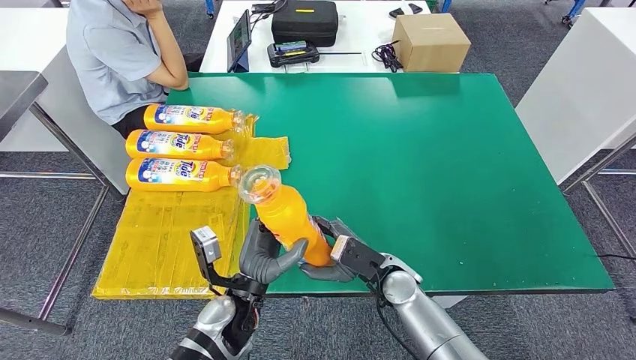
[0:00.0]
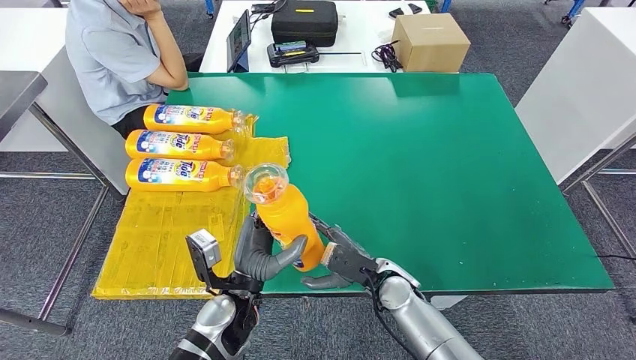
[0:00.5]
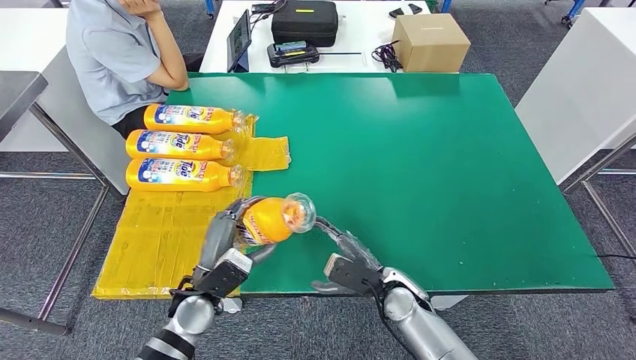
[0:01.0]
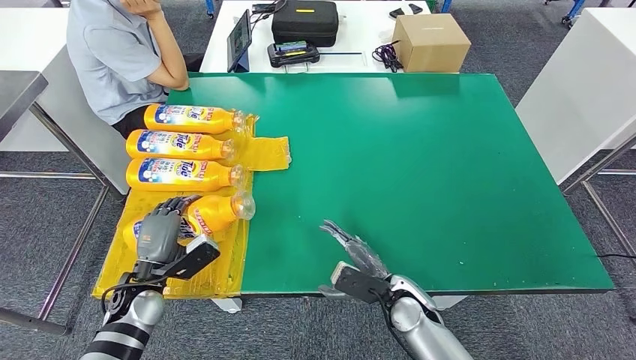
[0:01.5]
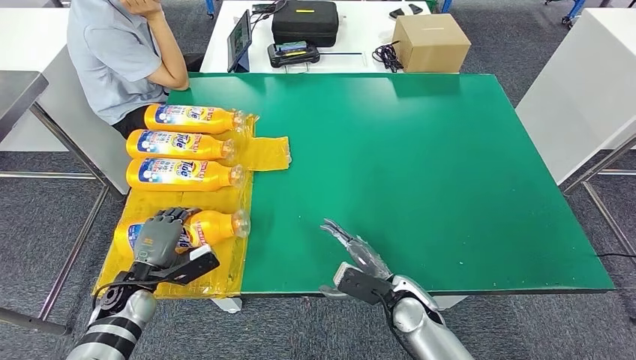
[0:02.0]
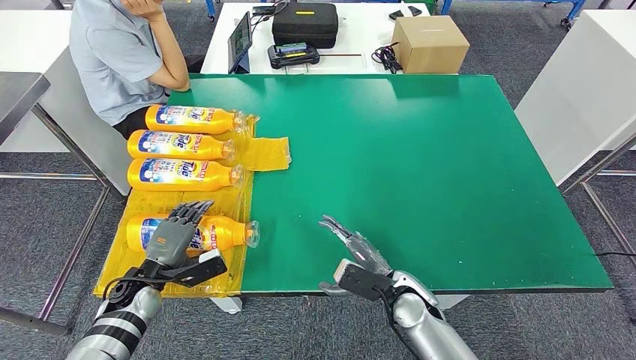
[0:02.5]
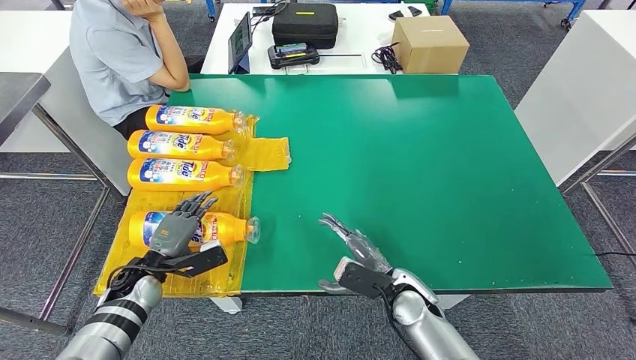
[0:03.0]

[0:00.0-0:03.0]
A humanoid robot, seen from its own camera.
Step, 0:00.0 to 0:03.0: Flip the fast-moving consumer goods bottle to the front side.
0:00.0 to 0:01.5: The right hand ends up approximately 5 cm from where it was, while the left hand travels to the left by roughly 20 cm.

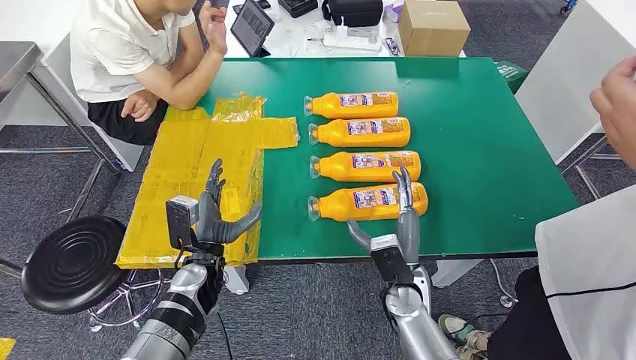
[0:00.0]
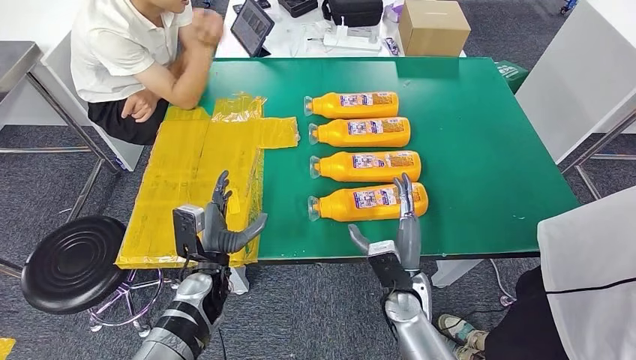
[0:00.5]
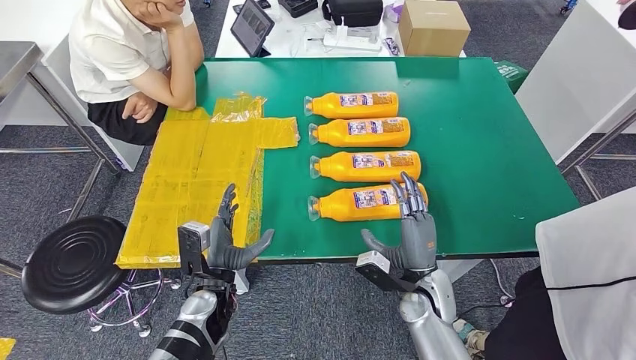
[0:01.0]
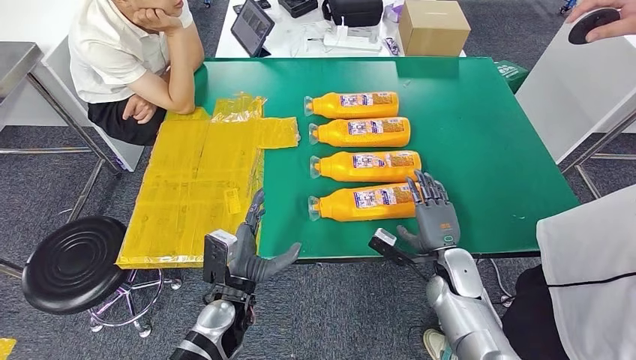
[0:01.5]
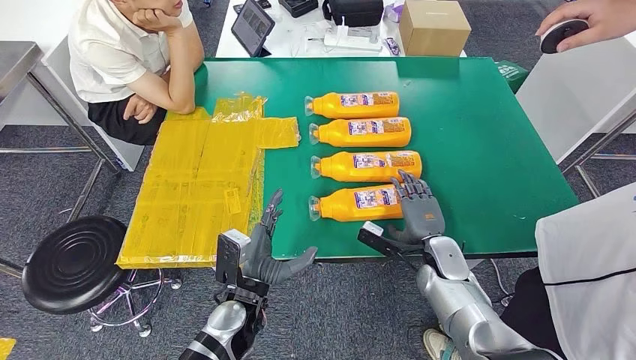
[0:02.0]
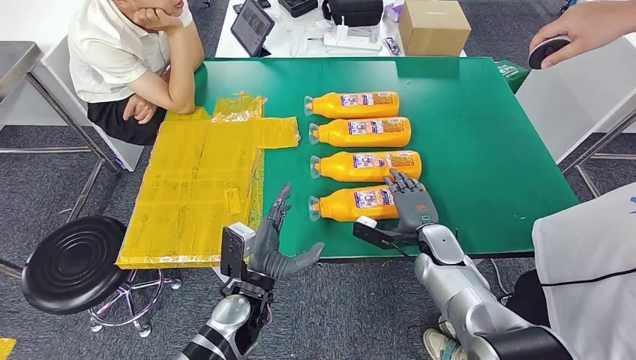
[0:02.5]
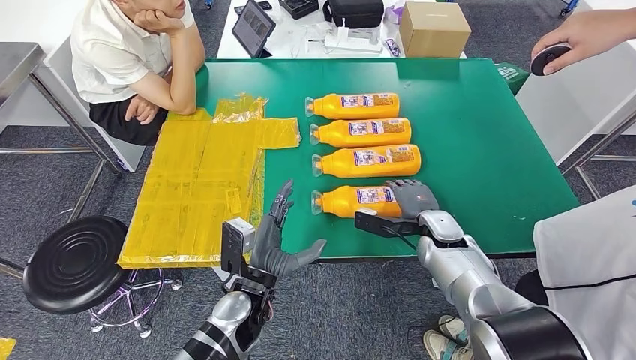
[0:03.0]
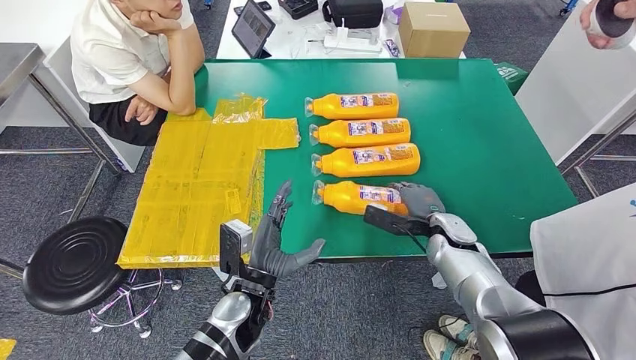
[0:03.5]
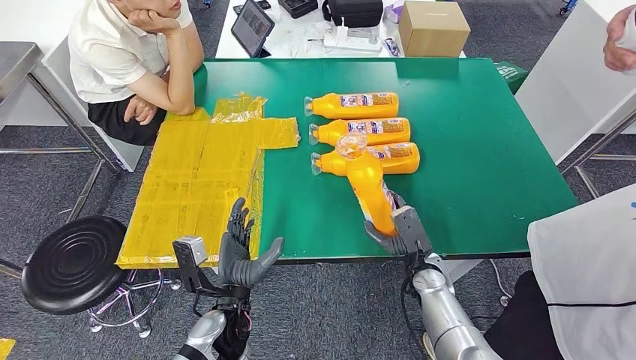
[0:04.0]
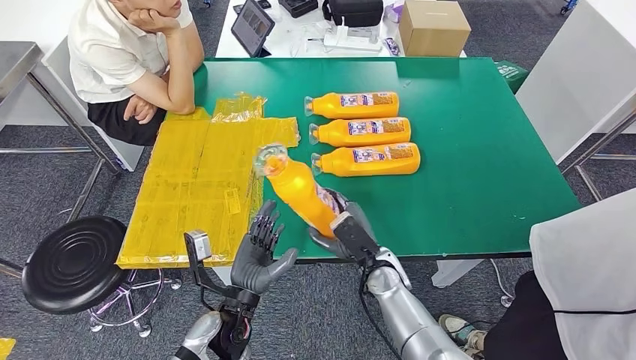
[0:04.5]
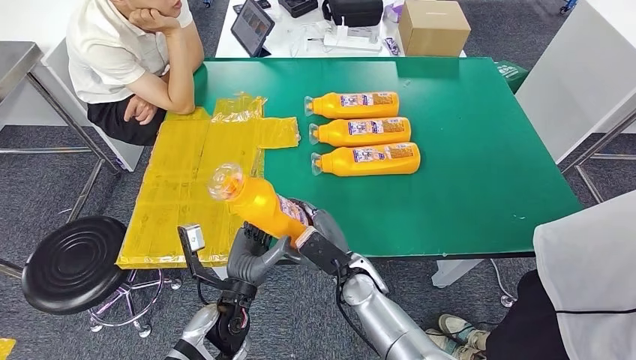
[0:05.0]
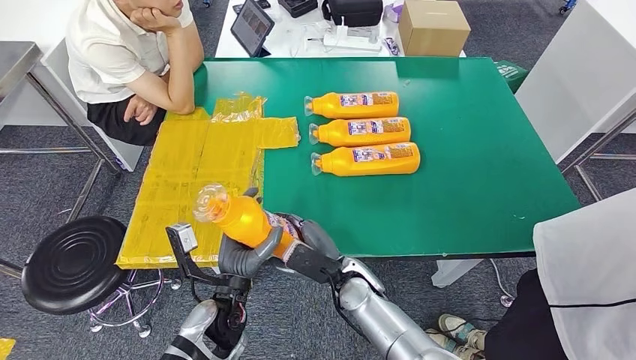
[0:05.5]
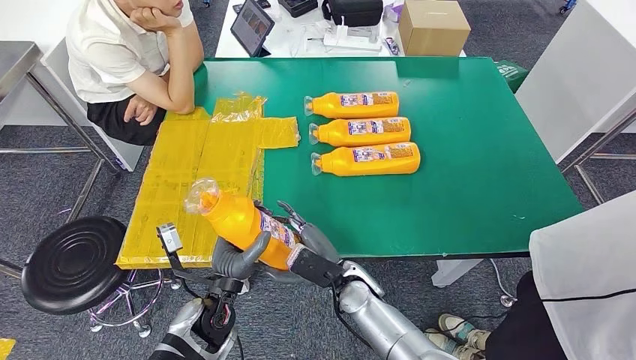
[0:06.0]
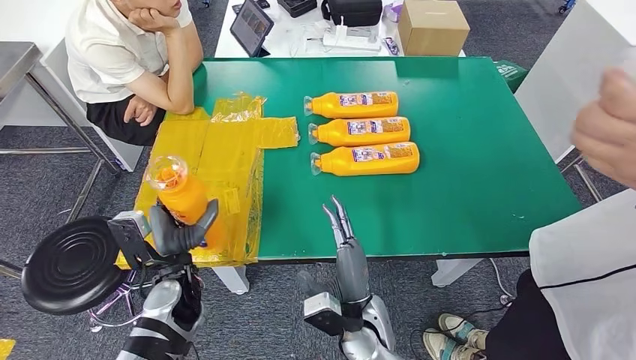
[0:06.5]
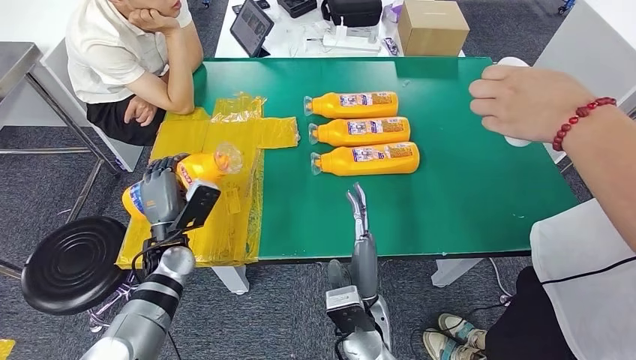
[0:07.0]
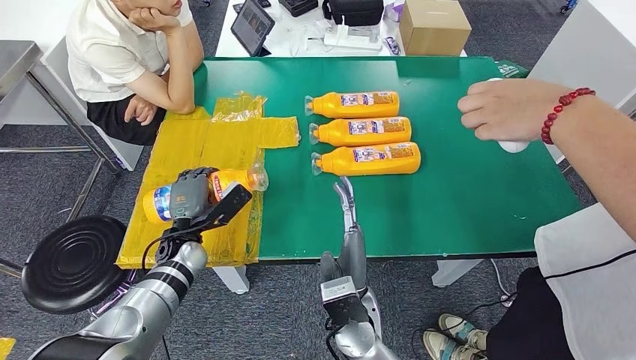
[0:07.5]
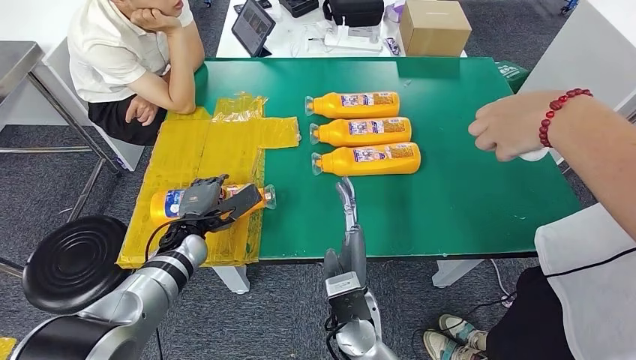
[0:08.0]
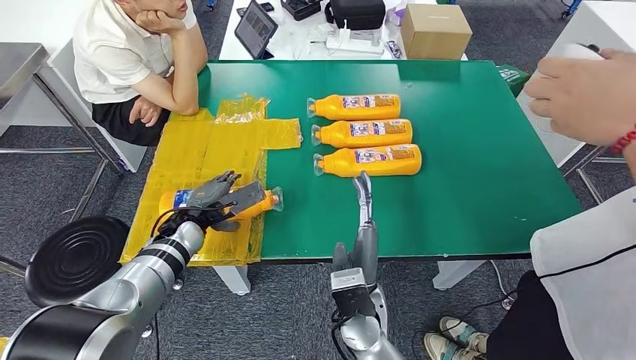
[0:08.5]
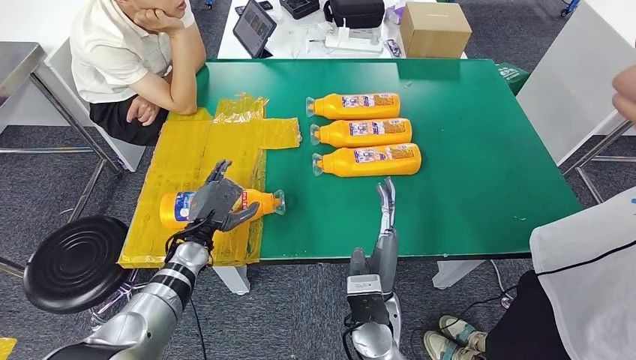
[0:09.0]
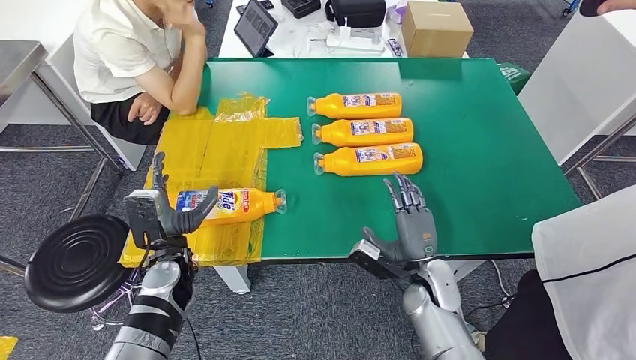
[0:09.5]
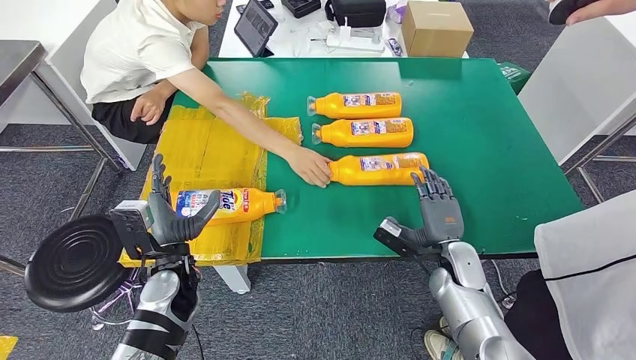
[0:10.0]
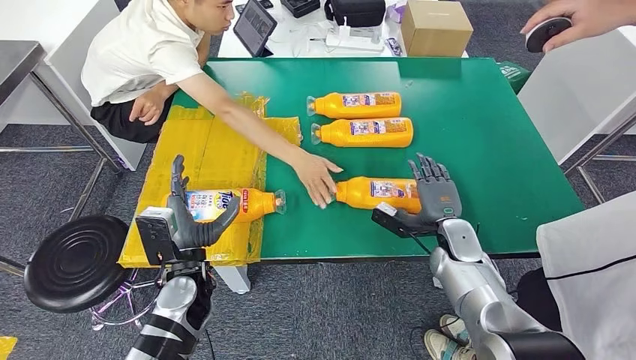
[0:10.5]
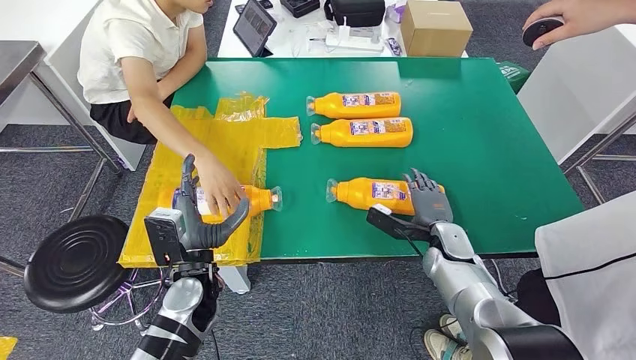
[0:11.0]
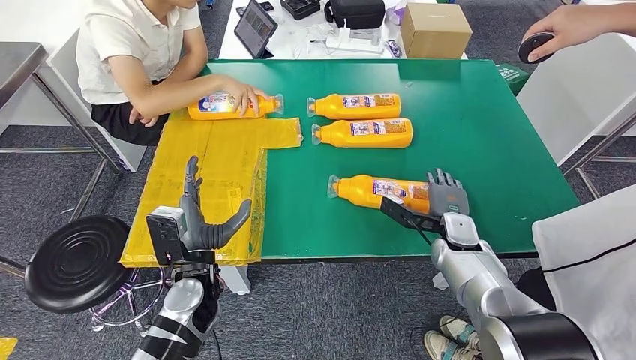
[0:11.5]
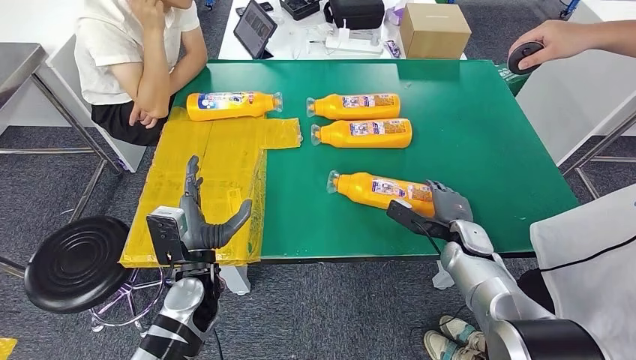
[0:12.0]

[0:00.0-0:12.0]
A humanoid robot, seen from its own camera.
Step, 0:00.0 to 0:03.5: Take the fast-moving consumer goods bottle from the table.
Step, 0:04.0 to 0:10.0: Flip the fast-moving consumer goods bottle to the front side.
0:04.0 to 0:06.0: The right hand heads to the left, covering roughly 15 cm.

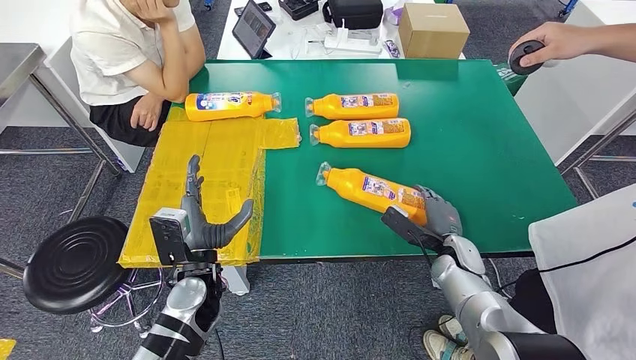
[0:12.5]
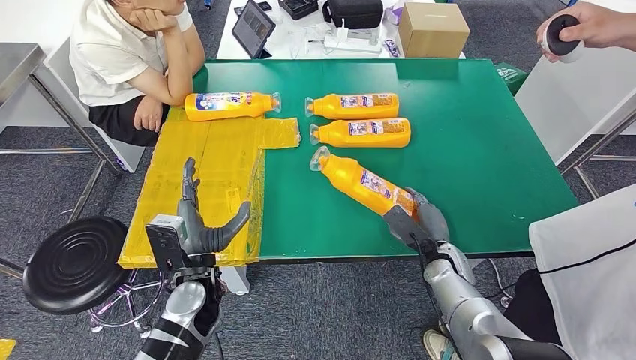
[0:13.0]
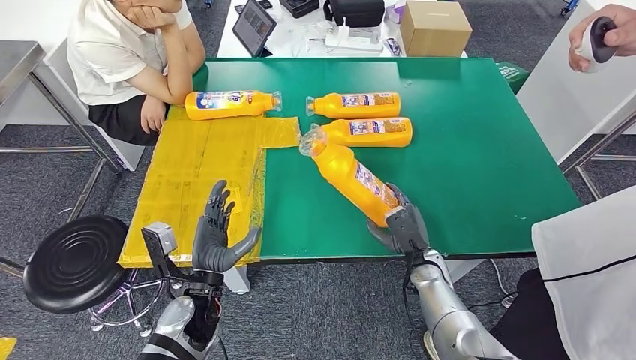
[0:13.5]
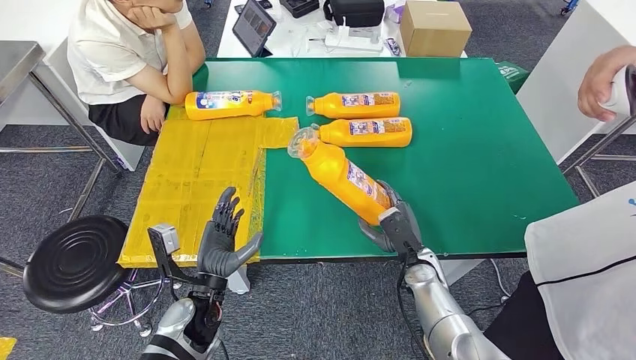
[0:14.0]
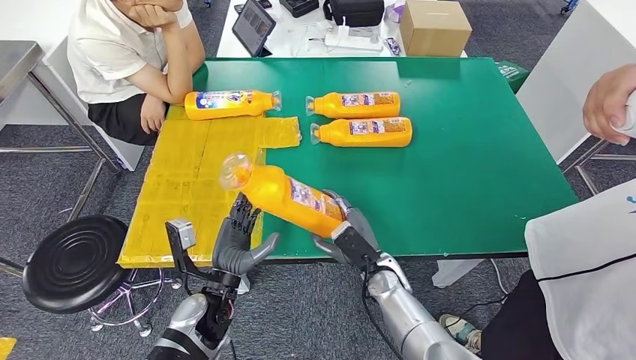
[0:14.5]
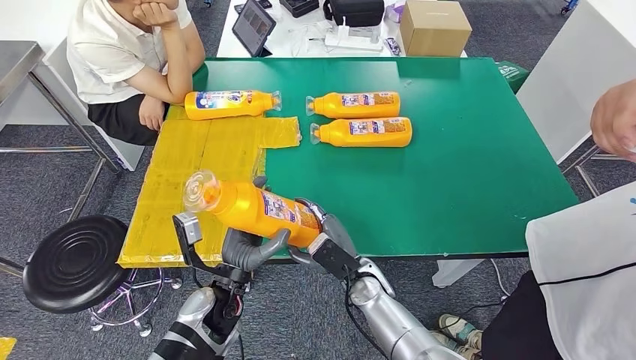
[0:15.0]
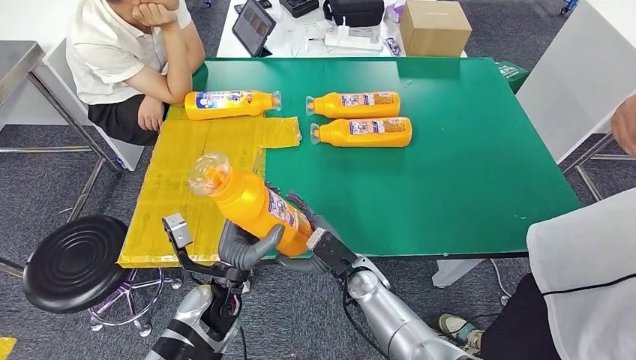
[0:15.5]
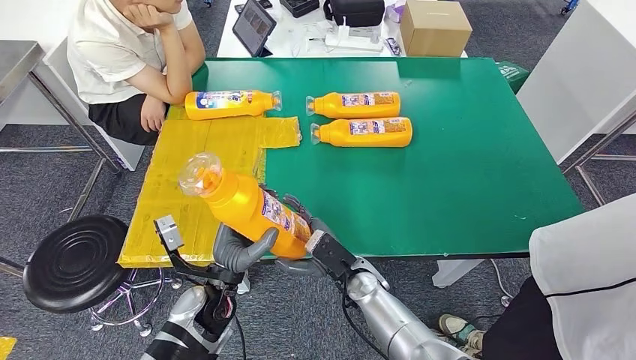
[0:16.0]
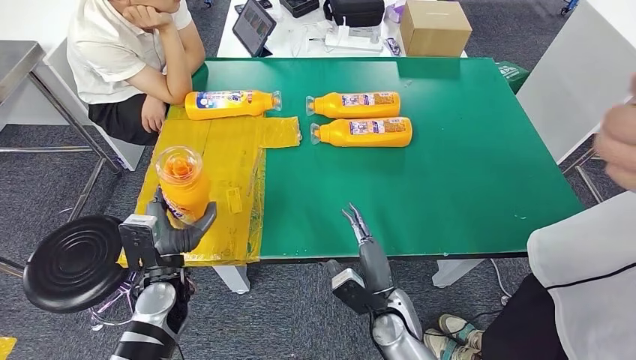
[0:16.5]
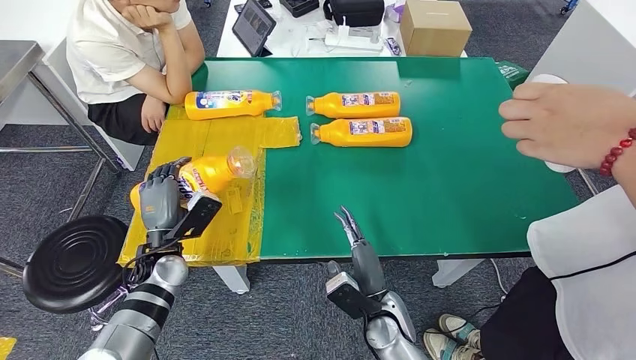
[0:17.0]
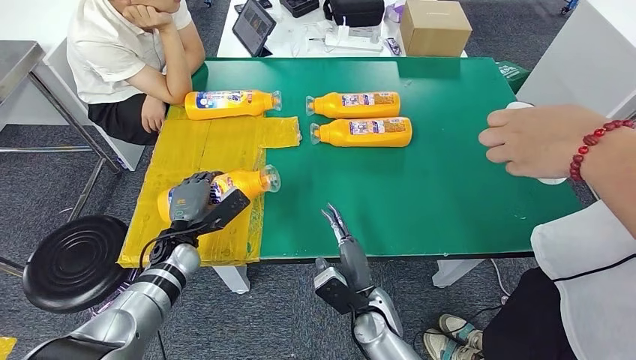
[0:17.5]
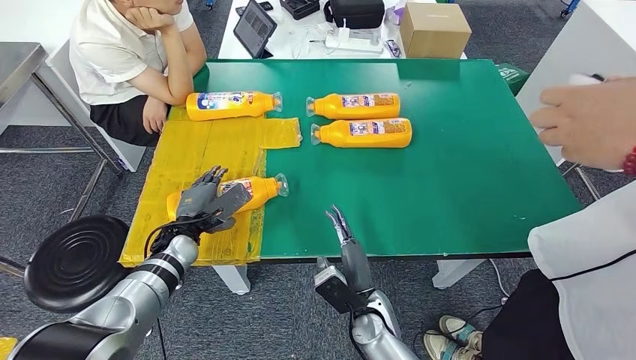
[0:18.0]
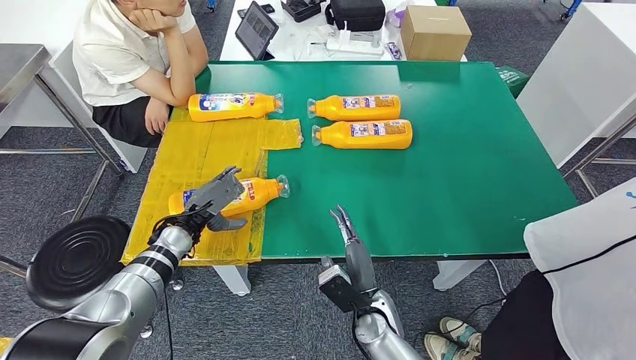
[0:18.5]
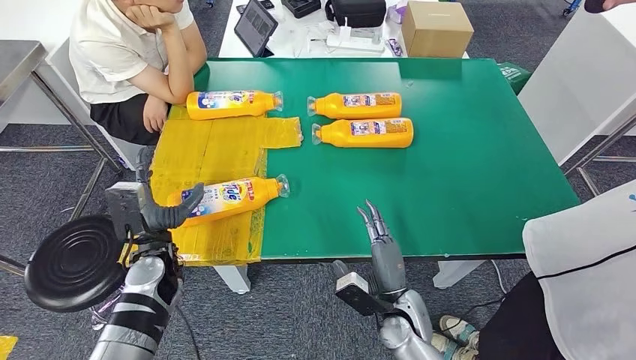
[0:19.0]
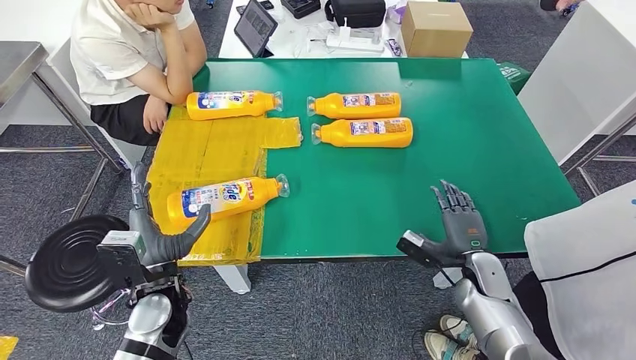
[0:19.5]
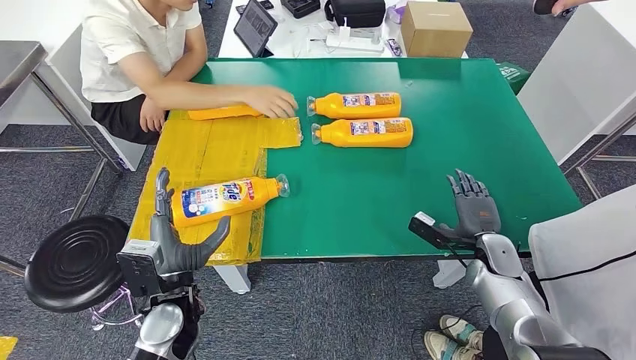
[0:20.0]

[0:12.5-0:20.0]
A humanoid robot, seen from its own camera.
Step, 0:15.0 to 0:19.5: Flip the fast-moving consumer goods bottle to the front side.
0:14.5 to 0:16.5: The left hand shifts approximately 5 cm to the left. Meanwhile the right hand is displaced backward by roughly 5 cm.
0:16.5 to 0:18.0: The left hand heads forward, covering approximately 10 cm.
